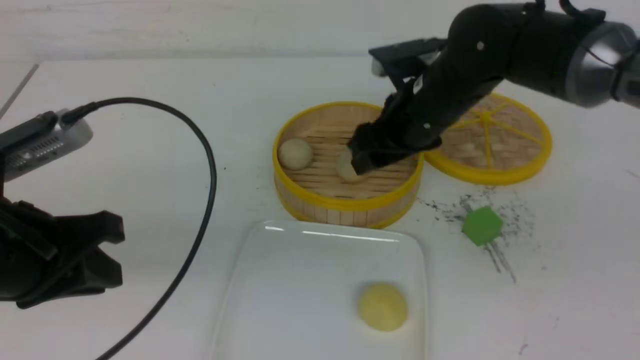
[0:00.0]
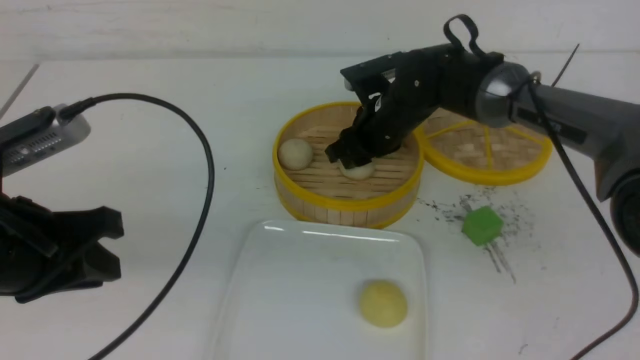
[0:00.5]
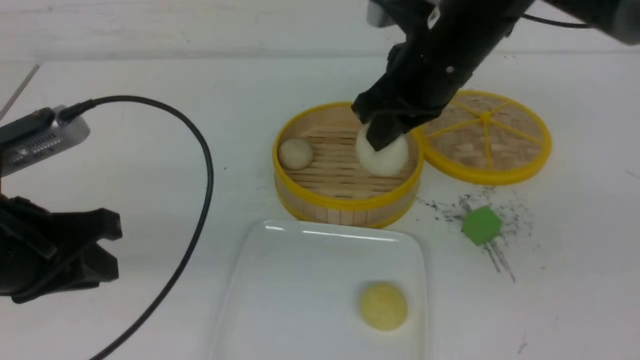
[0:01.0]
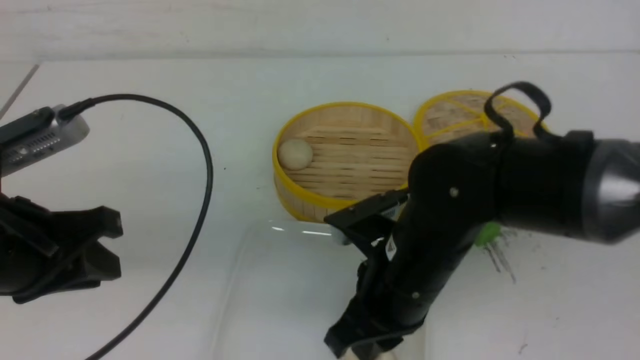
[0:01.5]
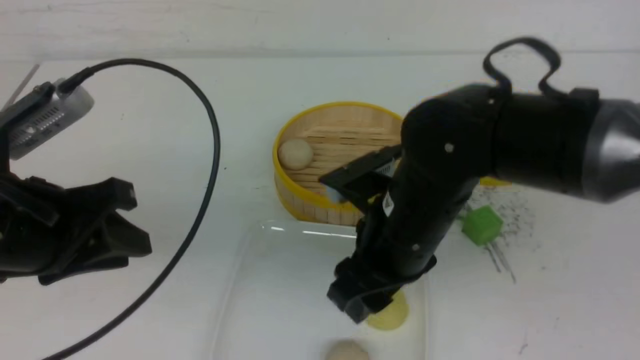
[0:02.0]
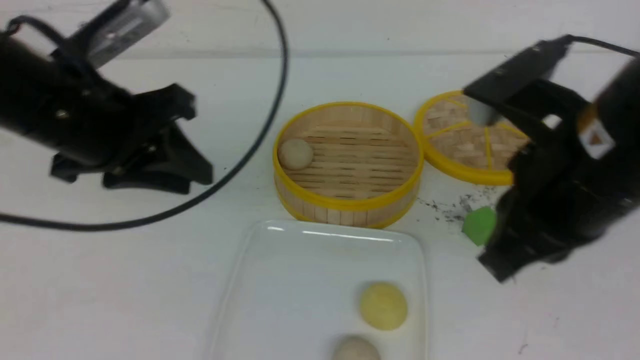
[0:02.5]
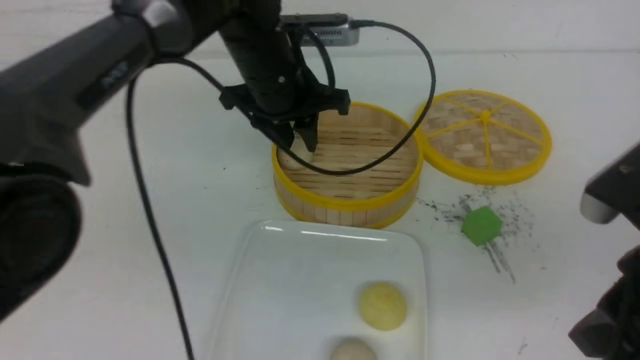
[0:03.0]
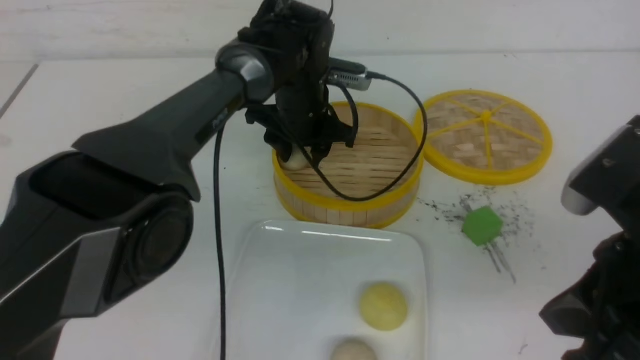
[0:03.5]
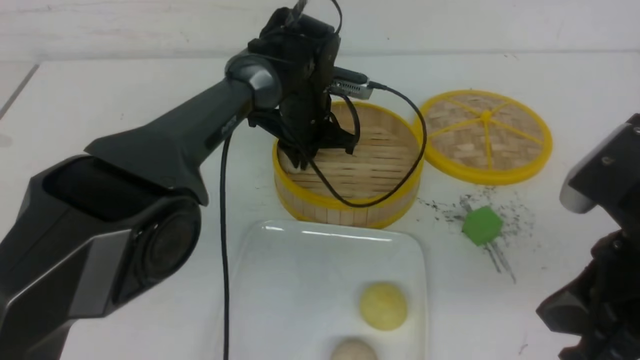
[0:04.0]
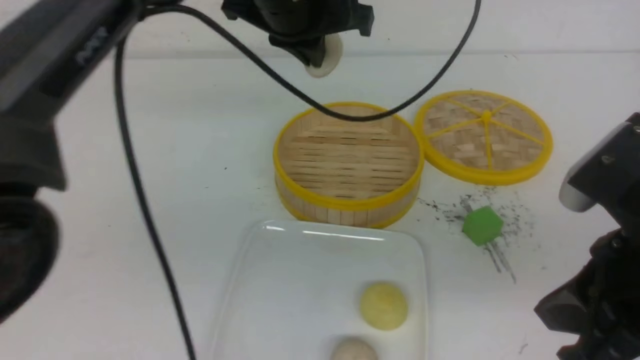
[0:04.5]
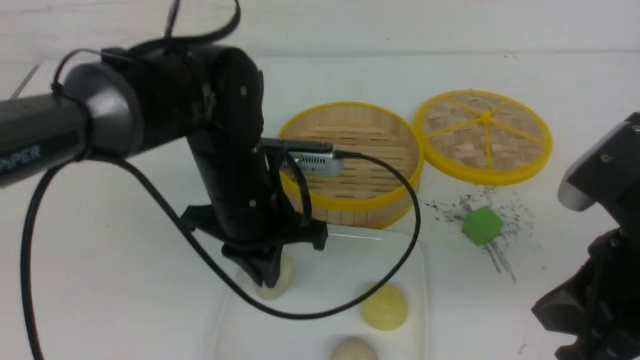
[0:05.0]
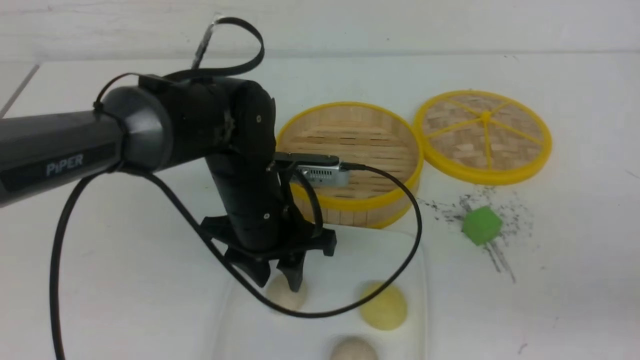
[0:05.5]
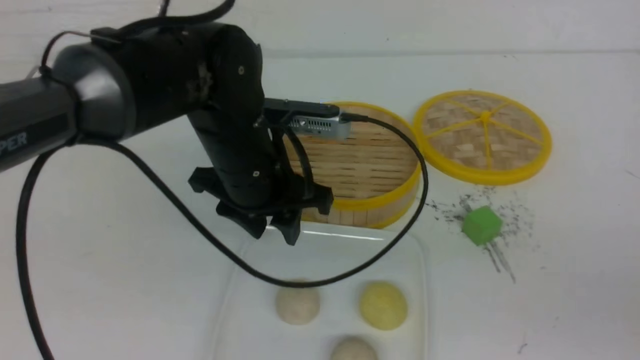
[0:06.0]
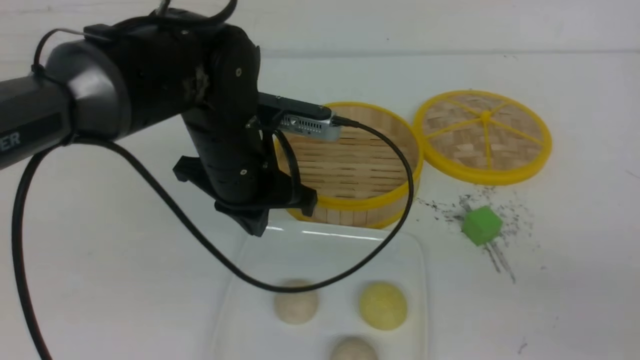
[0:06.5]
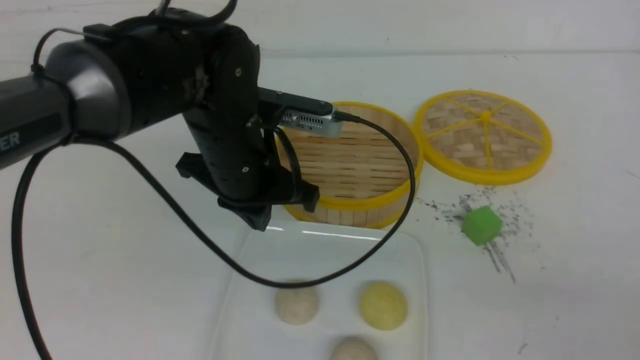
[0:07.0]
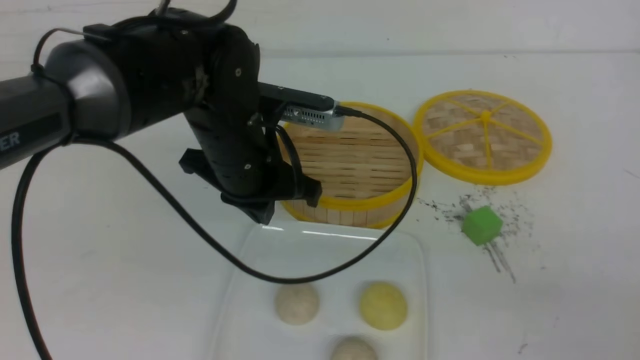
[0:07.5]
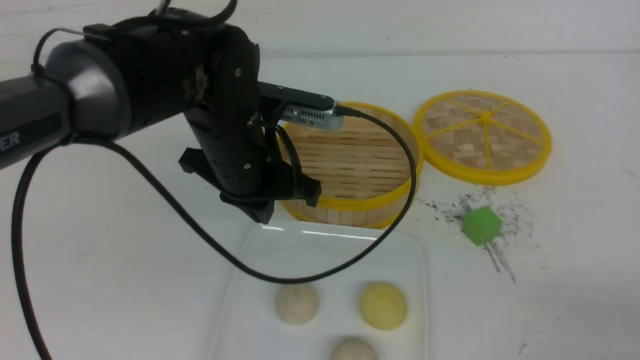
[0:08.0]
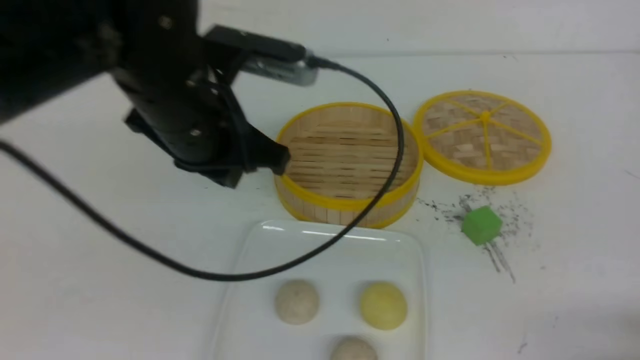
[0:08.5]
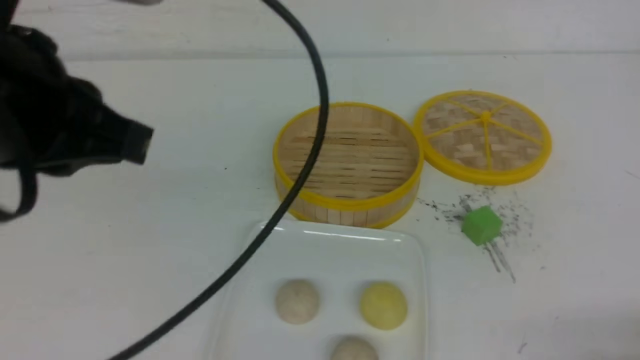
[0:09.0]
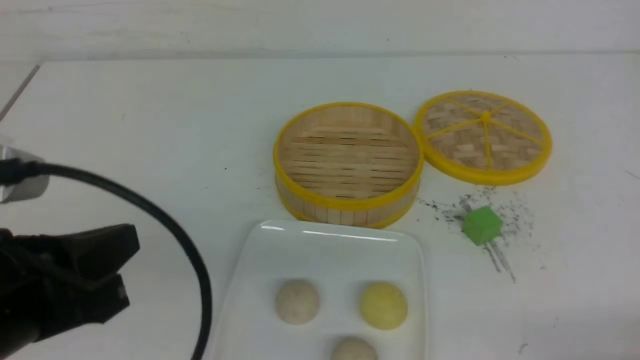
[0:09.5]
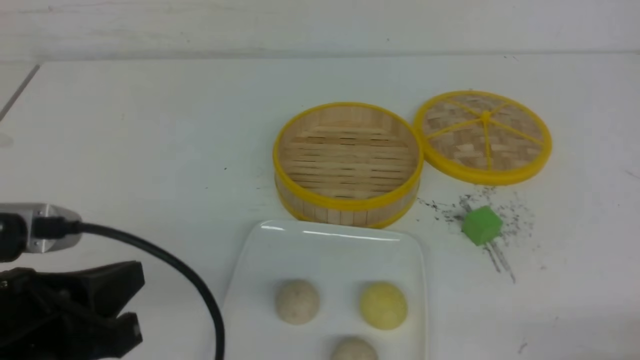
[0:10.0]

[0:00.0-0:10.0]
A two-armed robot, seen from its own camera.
Step, 0:00.0 to 0:00.5: use the right arm to grab the steamed stuffed bun that is closest to it.
Step, 0:01.0 to 0:01.5: use the right arm to put the steamed stuffed bun into the plate.
Step, 0:02.5 to 0:03.5: use the left arm to grab the steamed stuffed bun that is closest to it.
Step, 0:04.0 to 0:05.0: use the left arm to put the steamed stuffed bun into the plate.
0:00.0 to 0:02.0: The right gripper moves backward, roughly 15 cm, and closes, then reopens.
0:02.0 to 0:04.0: The right gripper travels to the right, backward and upward by about 20 cm, and closes its fingers. The left gripper shifts some 35 cm forward and to the right, and closes up.
0:04.0 to 0:06.0: The left gripper shifts roughly 15 cm backward, and opens. The right gripper travels to the right and backward by approximately 15 cm.
0:06.0 to 0:08.0: The right gripper heads downward, covering about 10 cm. Meanwhile the left gripper closes up.
0:08.0 to 0:10.0: The right gripper shifts by some 5 cm, while the left gripper is displaced backward and to the left by about 25 cm.

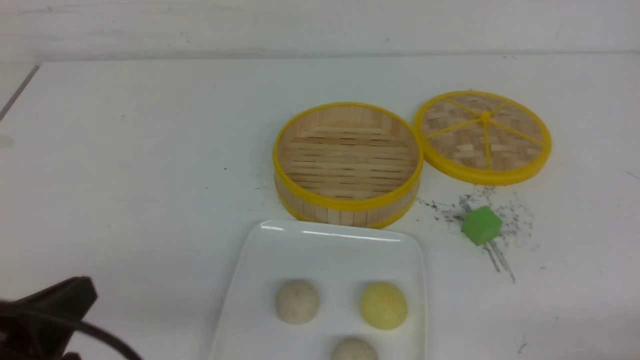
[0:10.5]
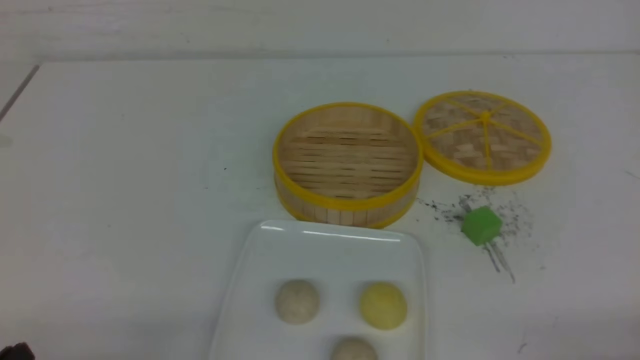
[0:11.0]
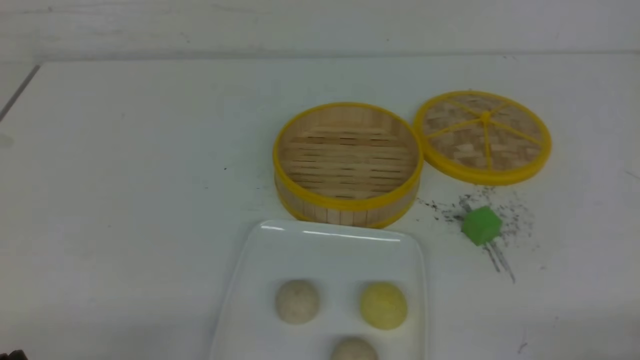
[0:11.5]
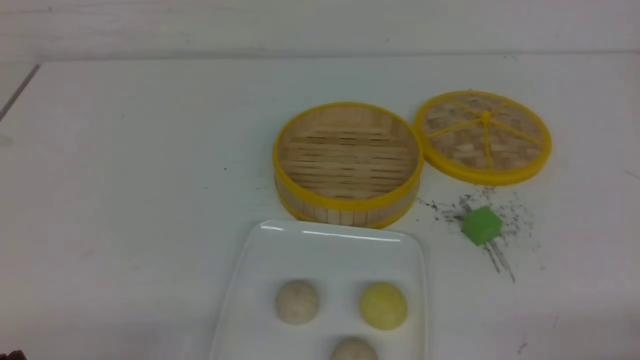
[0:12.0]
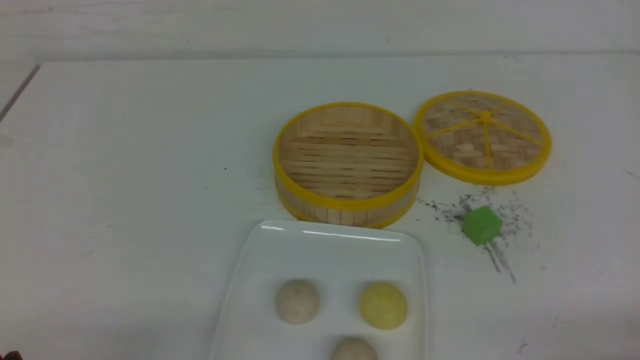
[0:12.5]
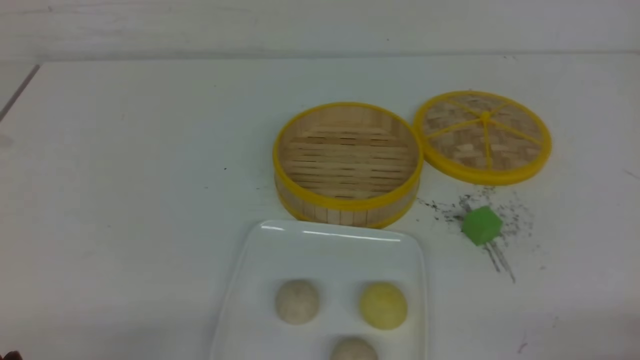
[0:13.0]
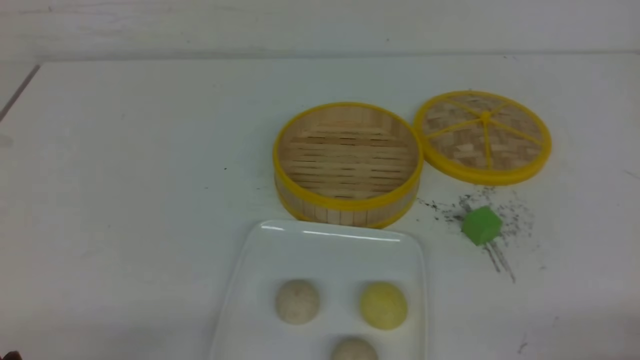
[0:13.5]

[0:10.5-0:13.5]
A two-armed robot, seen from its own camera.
0:10.5 to 0:12.0: The left gripper shifts roughly 10 cm downward.
0:12.0 to 0:13.5: Both grippers stay put.

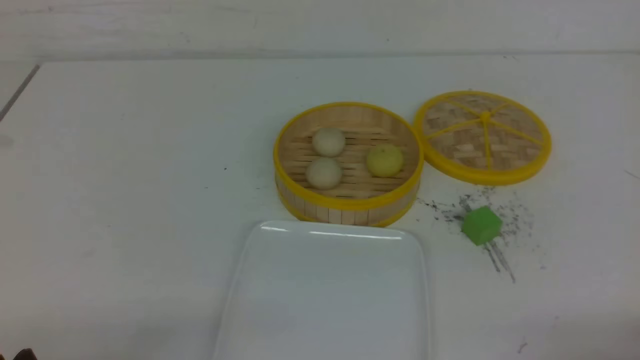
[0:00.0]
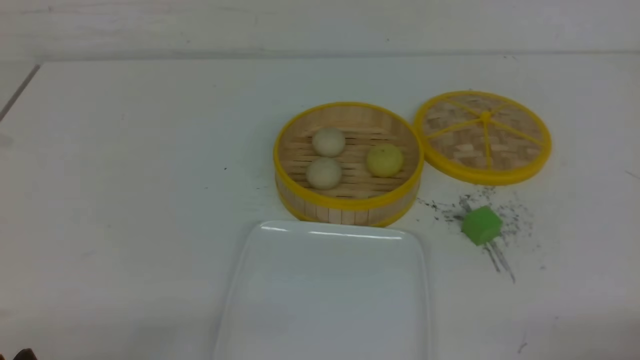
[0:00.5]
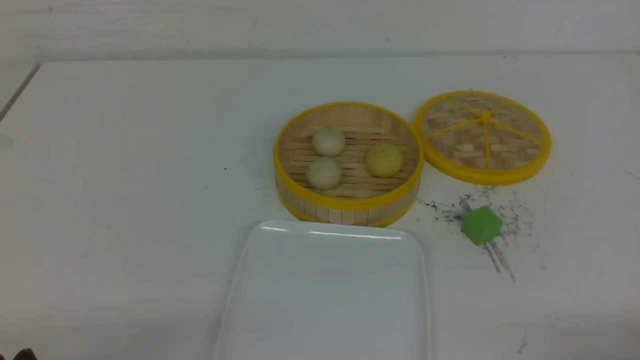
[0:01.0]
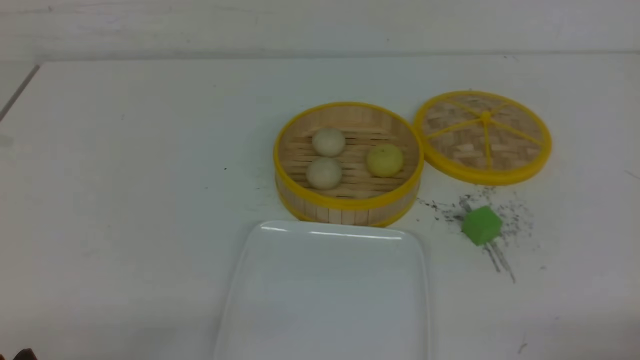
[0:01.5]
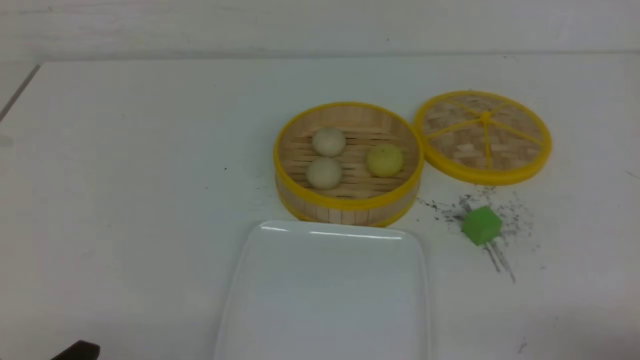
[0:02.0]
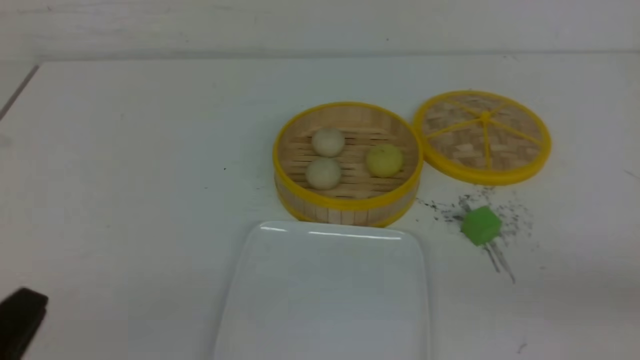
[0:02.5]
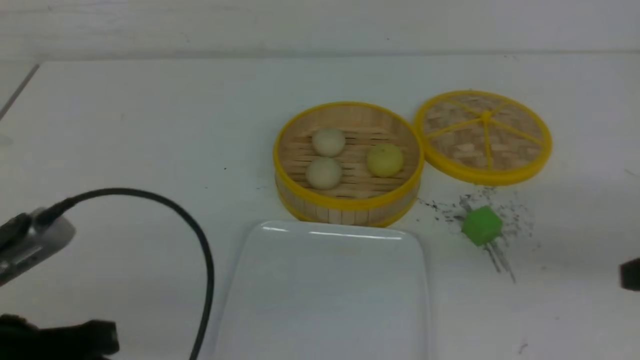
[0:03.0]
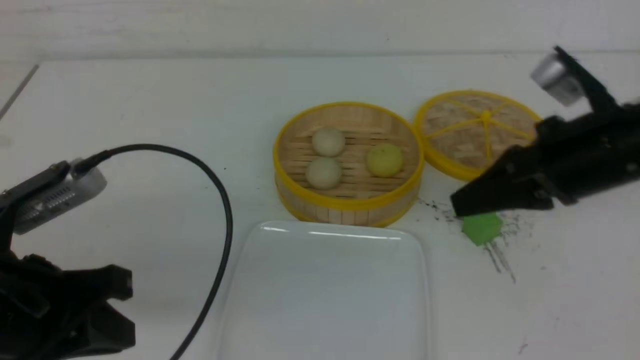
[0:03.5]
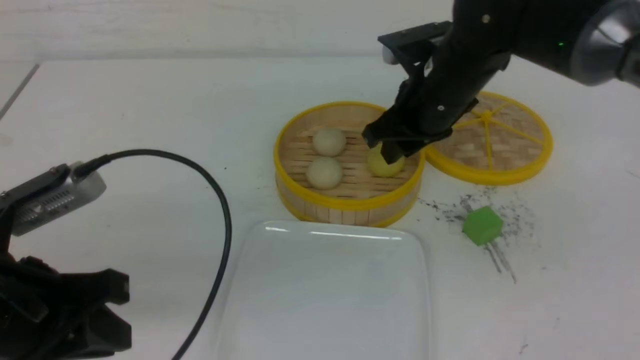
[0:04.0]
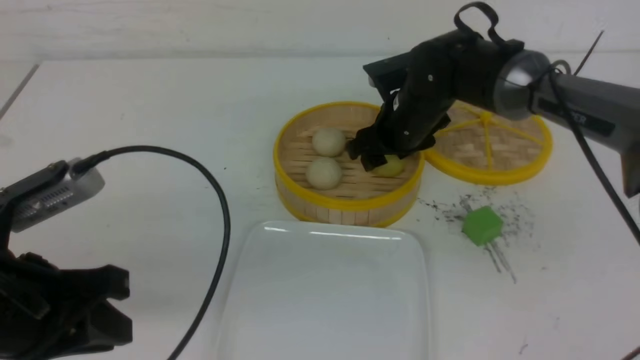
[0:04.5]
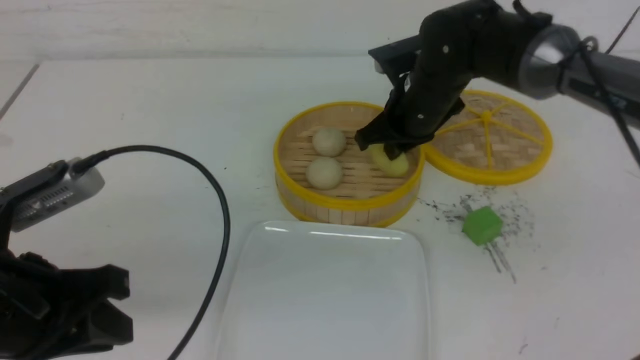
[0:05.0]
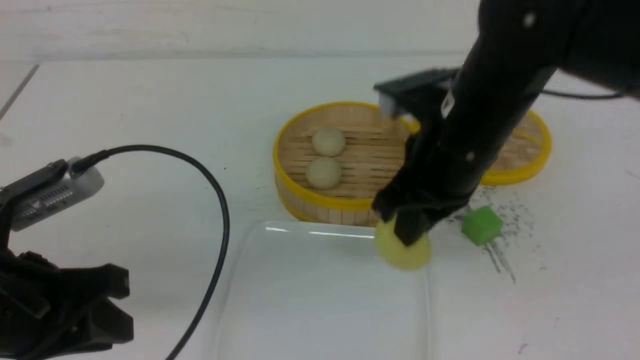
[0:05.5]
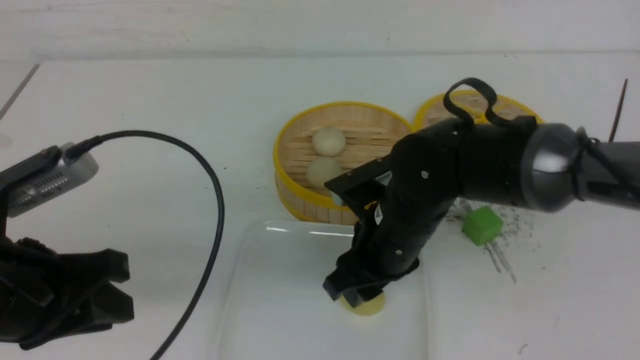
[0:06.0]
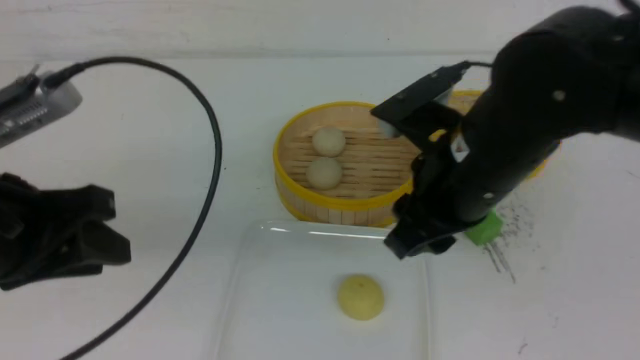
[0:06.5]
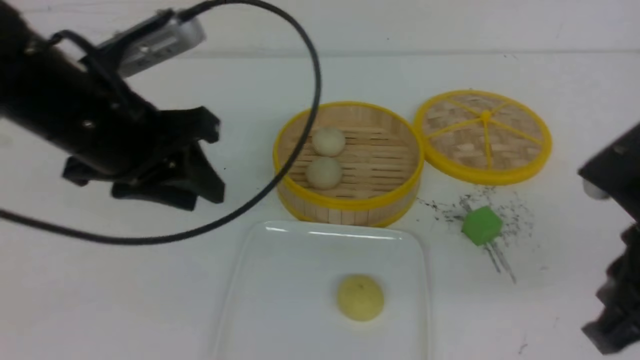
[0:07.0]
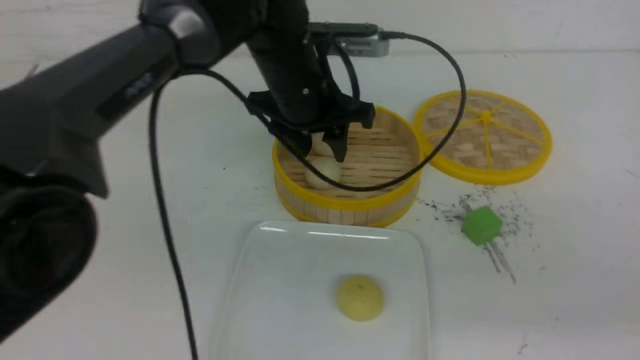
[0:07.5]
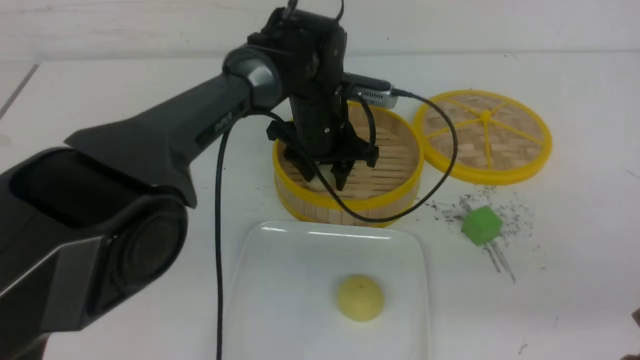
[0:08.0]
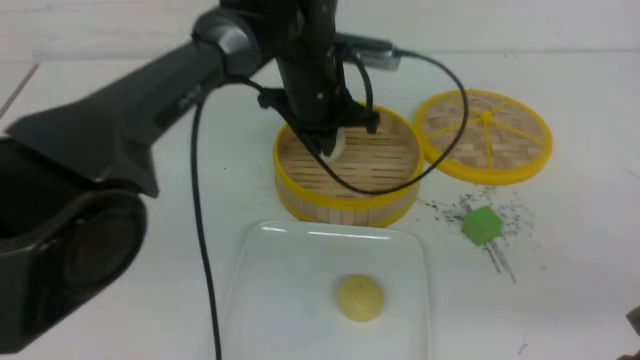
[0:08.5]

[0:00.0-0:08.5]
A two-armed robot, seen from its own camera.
Step, 0:00.0 to 0:04.5: use the right arm to grab the steamed stuffed bun that is closest to it.
Step, 0:05.0 to 0:06.0: use the right arm to put the steamed stuffed bun into the plate.
Step, 0:06.5 to 0:08.0: use the left arm to grab the steamed stuffed bun that is closest to it.
0:02.0 to 0:04.0: The right gripper travels forward and to the left by some 40 cm, and closes, then reopens. Meanwhile the left gripper shifts some 15 cm upward and forward.
0:04.0 to 0:06.5: The right gripper travels backward by roughly 15 cm, and closes, then reopens. Meanwhile the left gripper is displaced upward by some 5 cm.
0:06.5 to 0:08.5: The right gripper goes roughly 20 cm to the right and backward, and closes up, while the left gripper goes roughly 30 cm forward and to the right, and closes.
